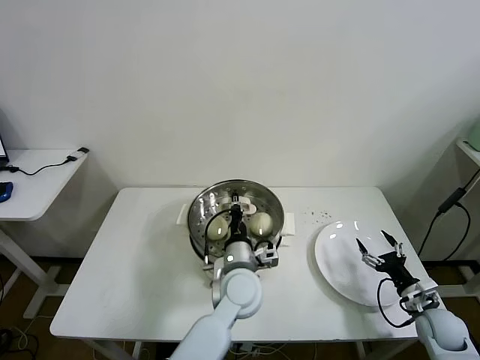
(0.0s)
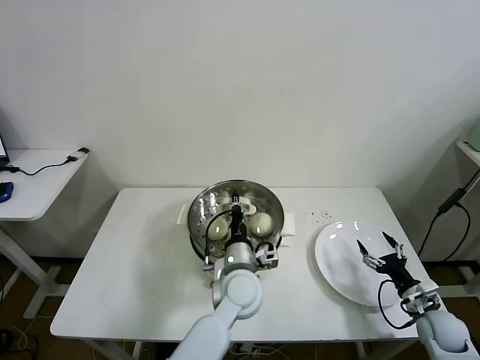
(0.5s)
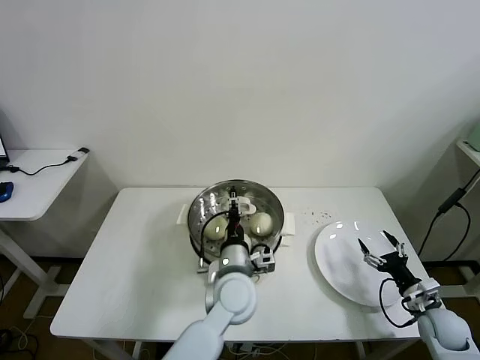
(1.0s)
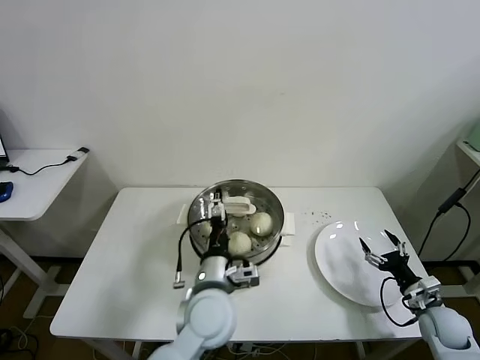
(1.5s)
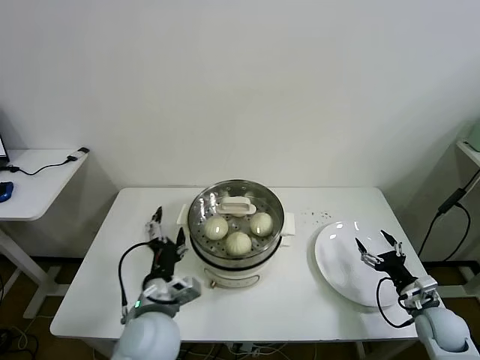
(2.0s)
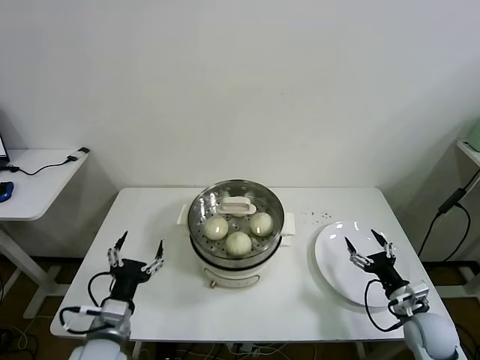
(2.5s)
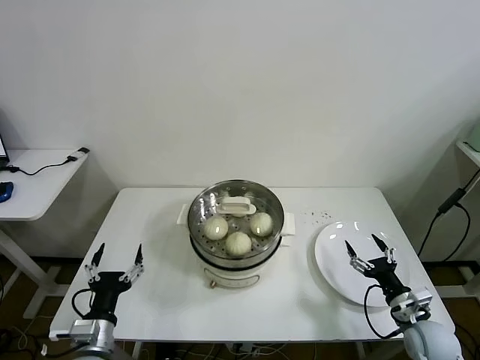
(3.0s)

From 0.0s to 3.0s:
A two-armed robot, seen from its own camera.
Task of the whole recording: take steamed baozi put them in steamer then cover it.
From 0.0s to 1.5s: The left gripper heads backward, covering some 5 cm, and opens up.
From 1.5s to 3.0s: The left gripper is displaced to the left and backward by approximately 25 cm, while the right gripper shifts about 5 cm to the left.
